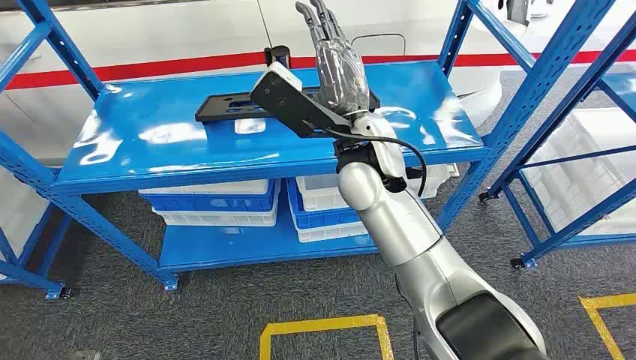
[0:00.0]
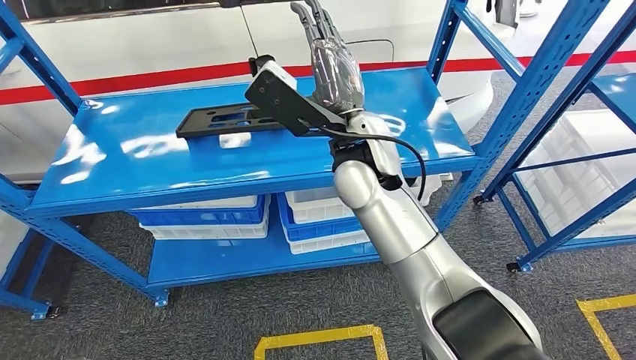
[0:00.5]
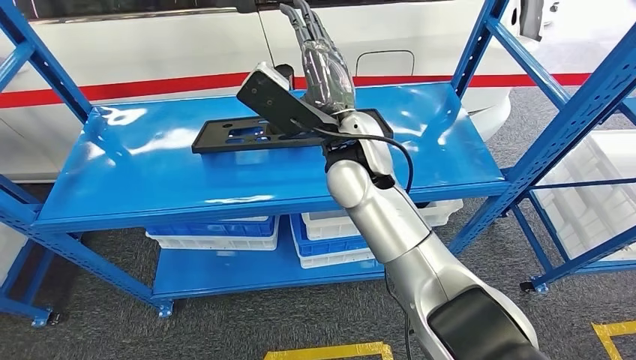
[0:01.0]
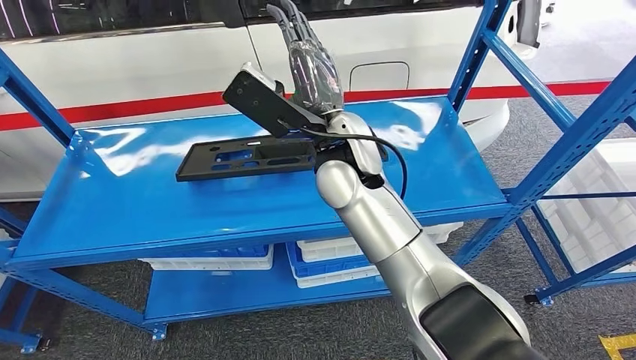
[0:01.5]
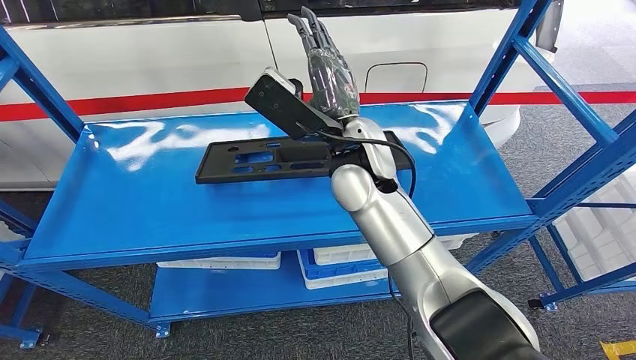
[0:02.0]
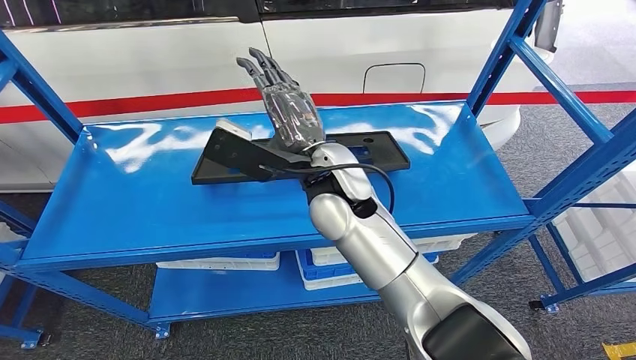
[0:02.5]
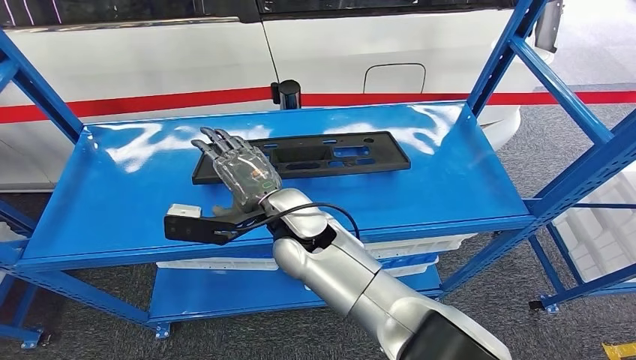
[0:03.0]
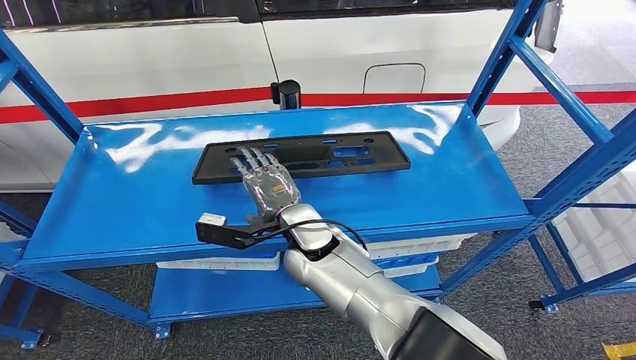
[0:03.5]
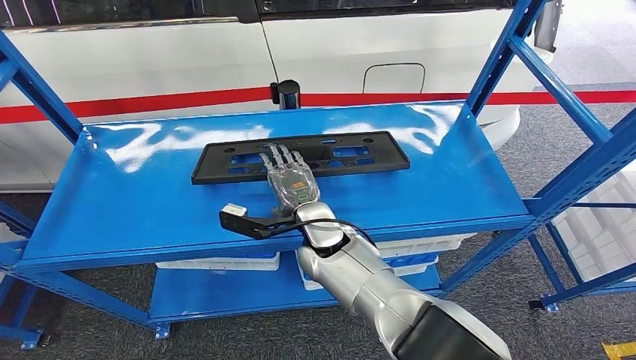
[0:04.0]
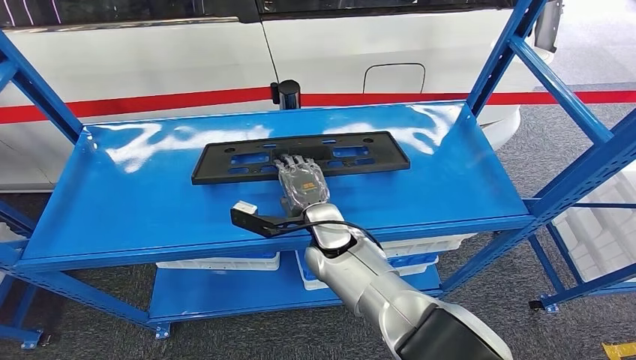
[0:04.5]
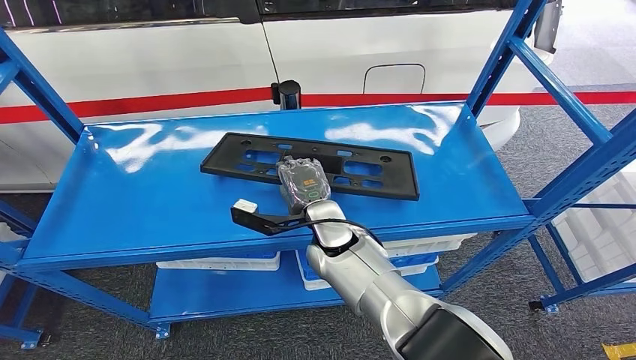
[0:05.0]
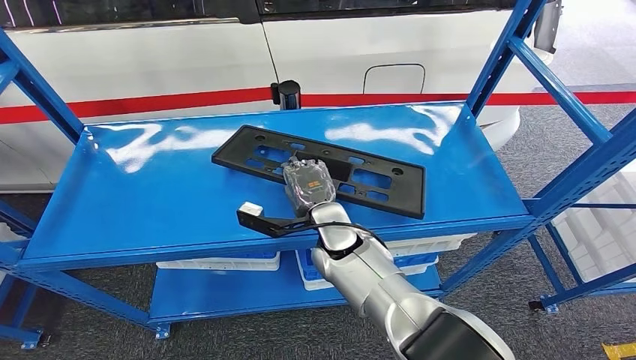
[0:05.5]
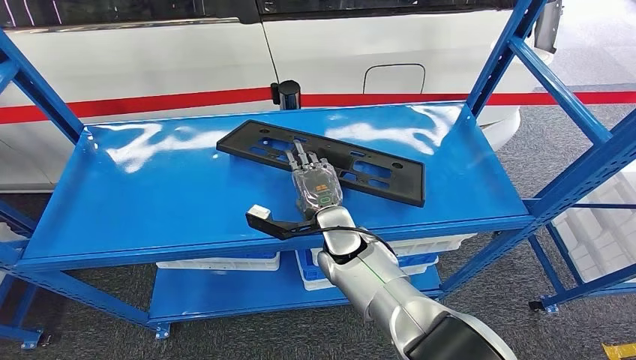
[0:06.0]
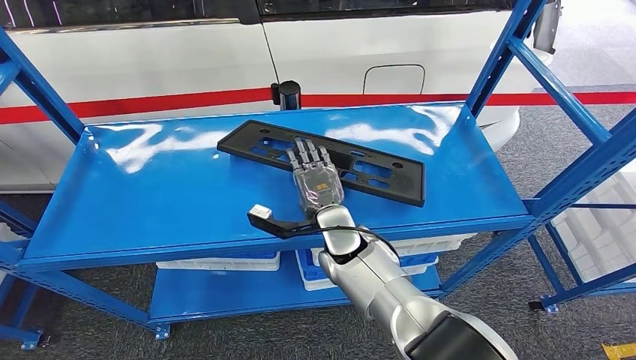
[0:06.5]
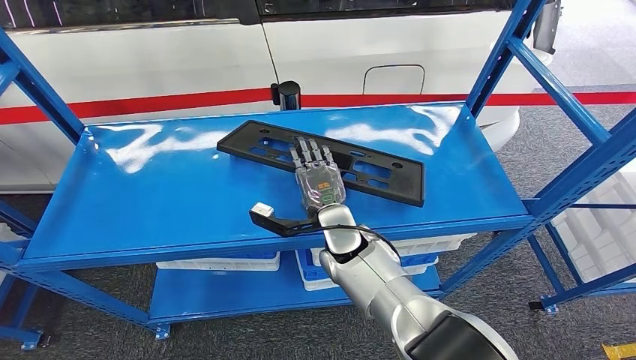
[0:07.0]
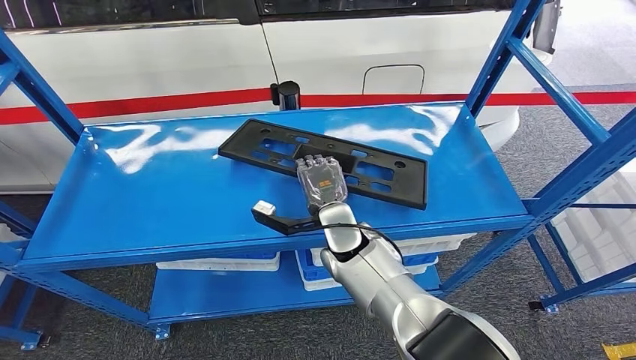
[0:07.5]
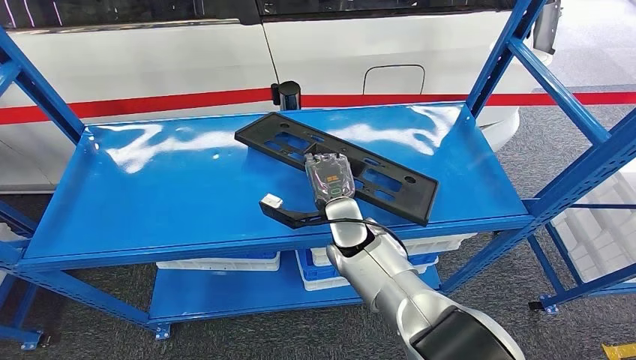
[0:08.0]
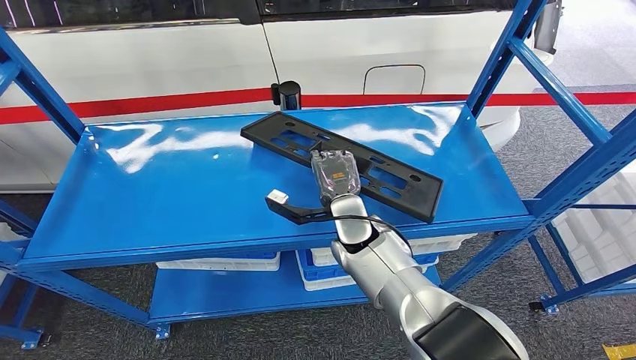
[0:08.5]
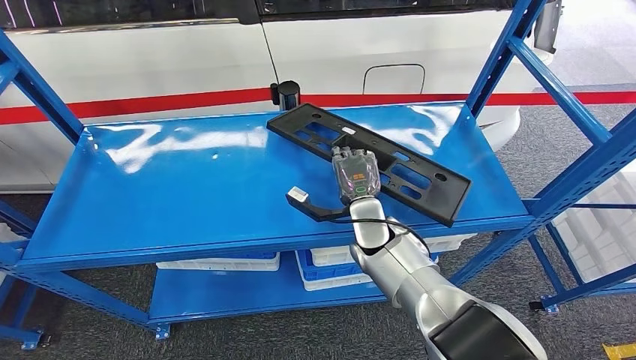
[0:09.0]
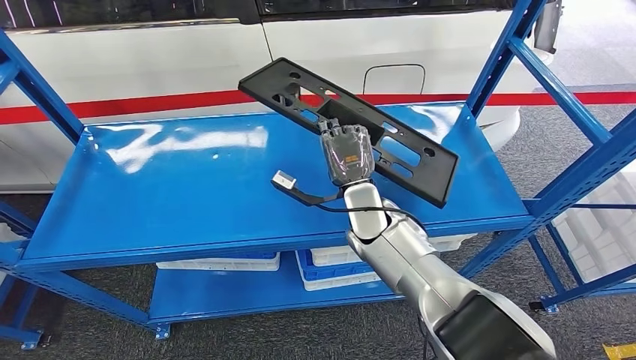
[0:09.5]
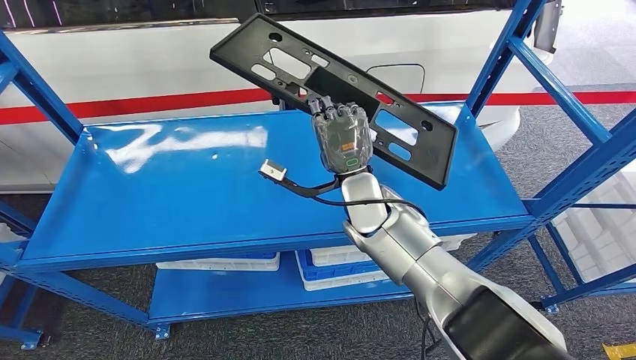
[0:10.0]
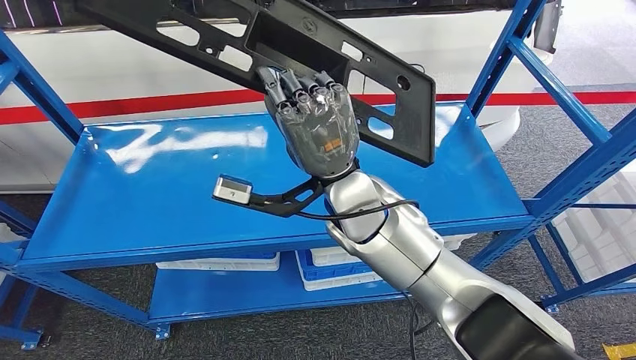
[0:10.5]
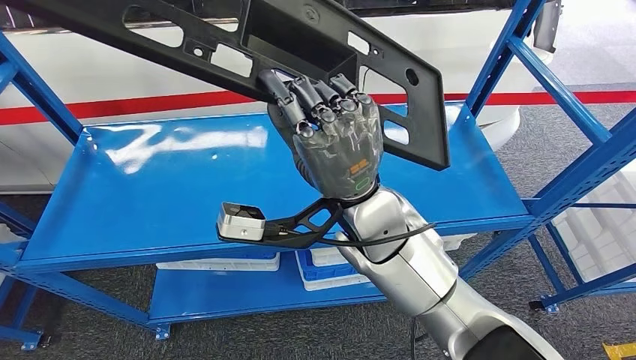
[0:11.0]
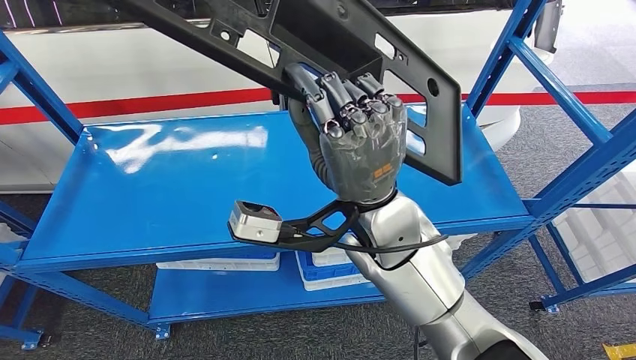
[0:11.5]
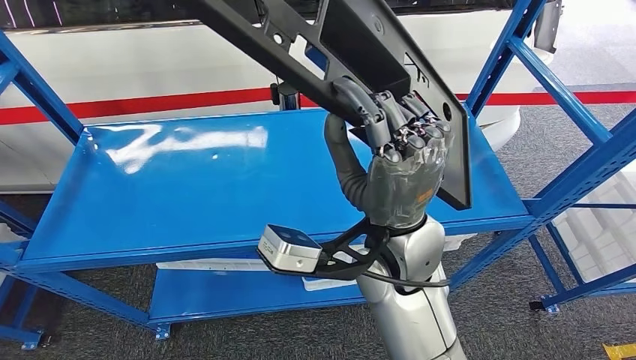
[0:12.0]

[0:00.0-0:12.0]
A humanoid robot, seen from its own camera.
0:04.0 to 0:08.0: The hands move only a little.
0:08.0 to 0:10.0: The right hand shifts approximately 5 cm upward.

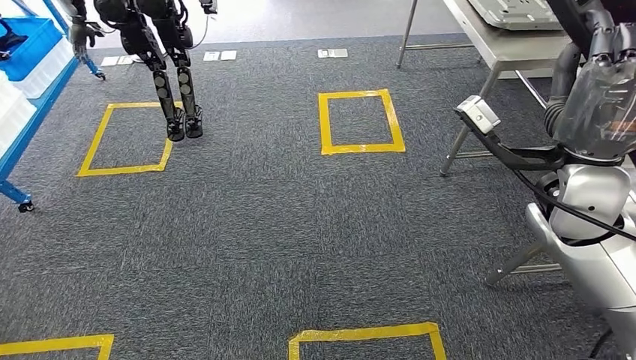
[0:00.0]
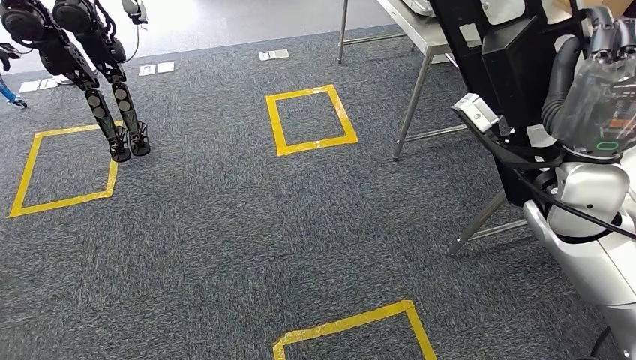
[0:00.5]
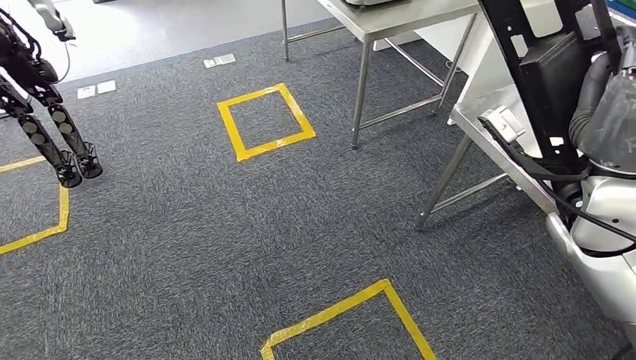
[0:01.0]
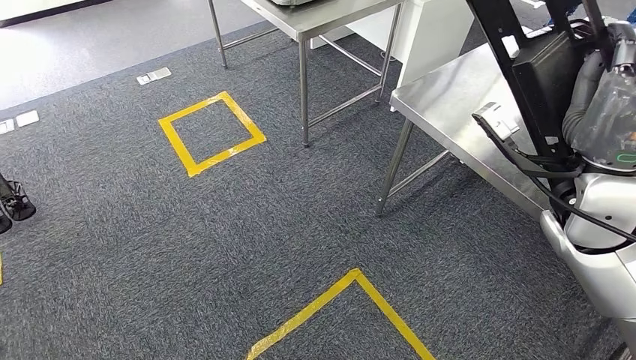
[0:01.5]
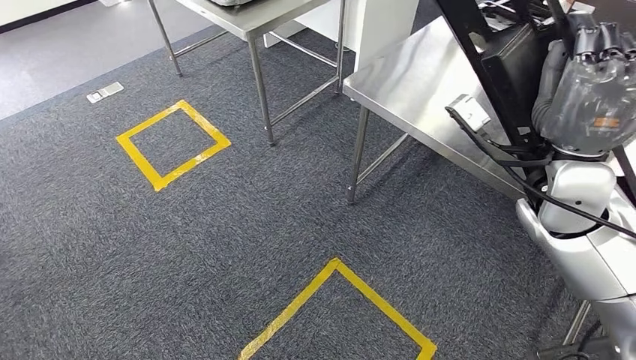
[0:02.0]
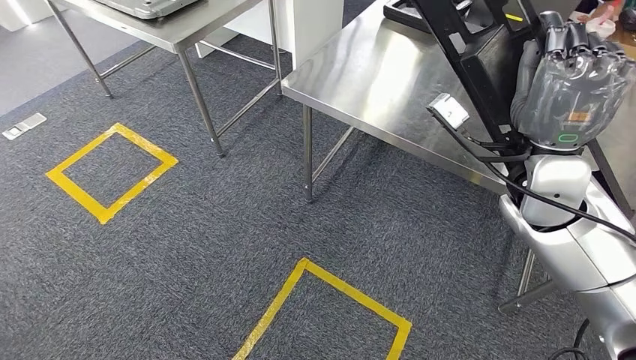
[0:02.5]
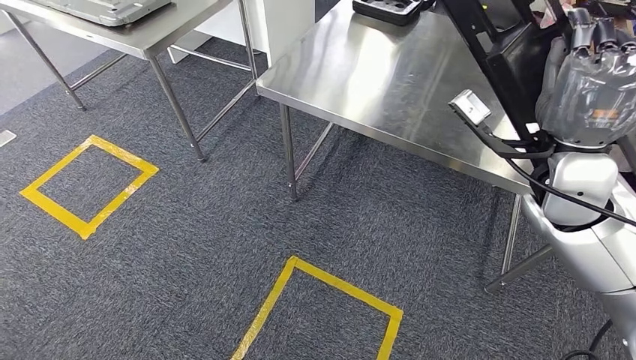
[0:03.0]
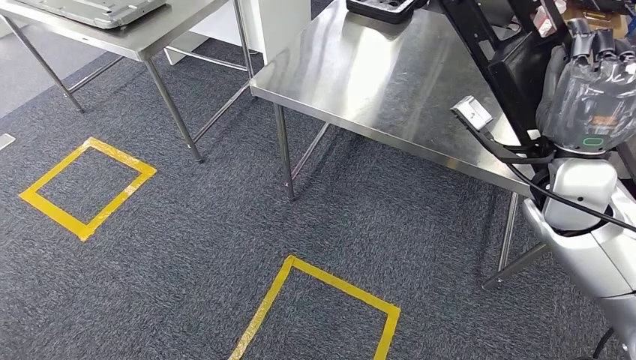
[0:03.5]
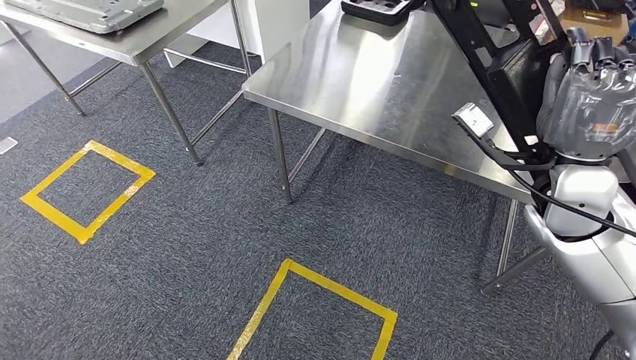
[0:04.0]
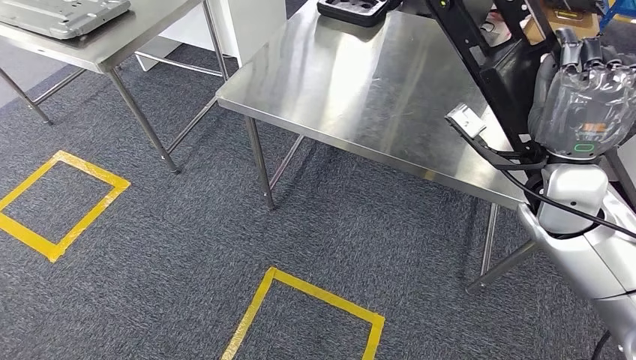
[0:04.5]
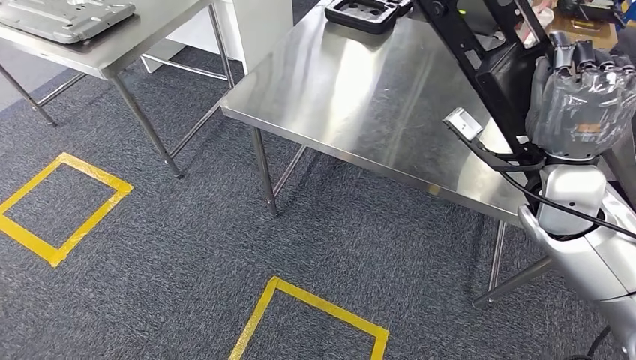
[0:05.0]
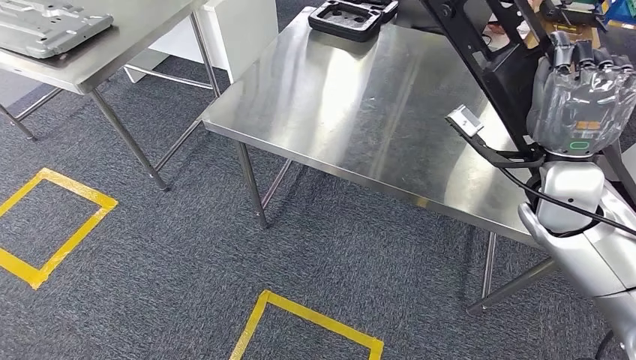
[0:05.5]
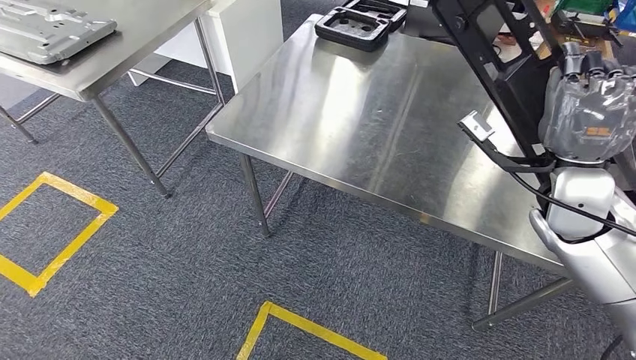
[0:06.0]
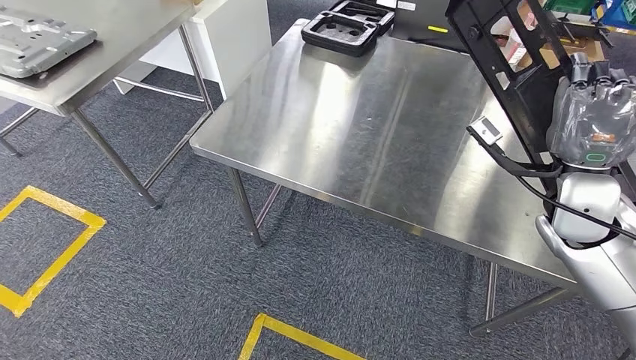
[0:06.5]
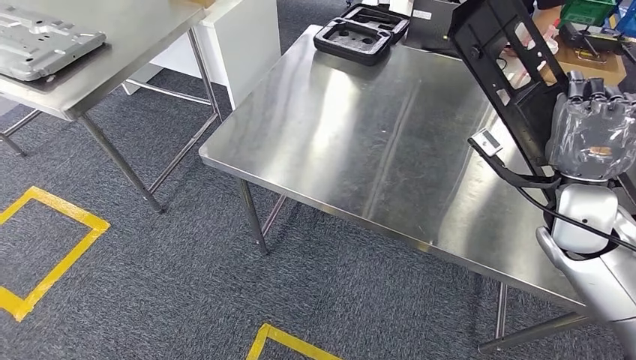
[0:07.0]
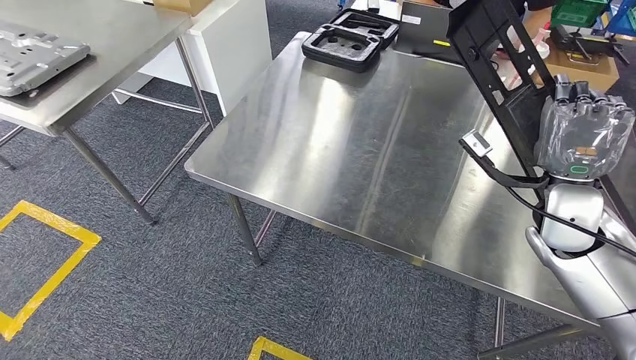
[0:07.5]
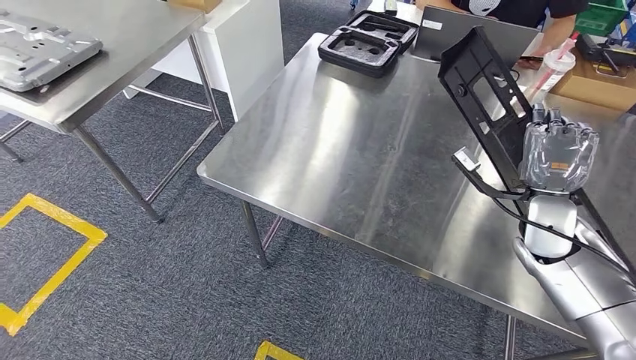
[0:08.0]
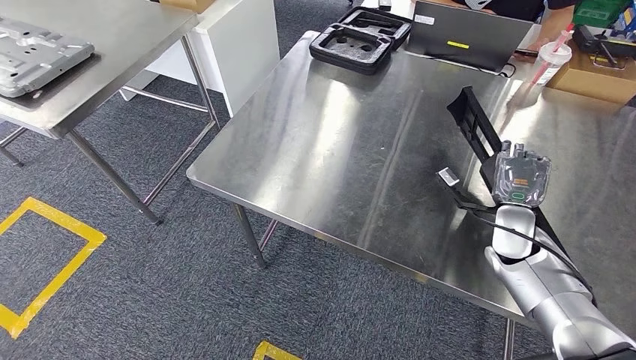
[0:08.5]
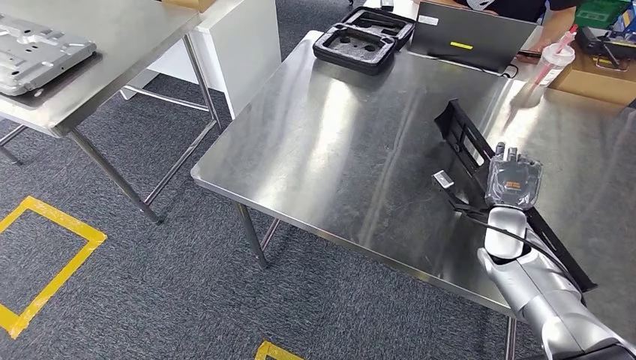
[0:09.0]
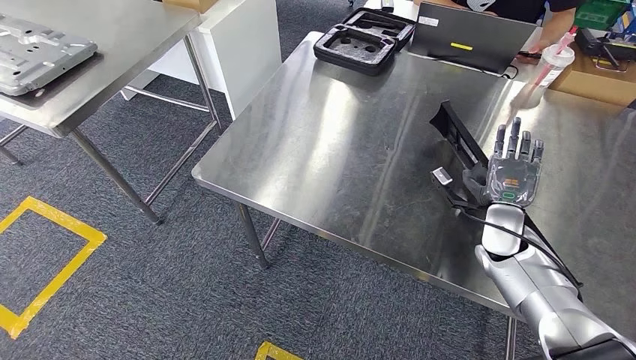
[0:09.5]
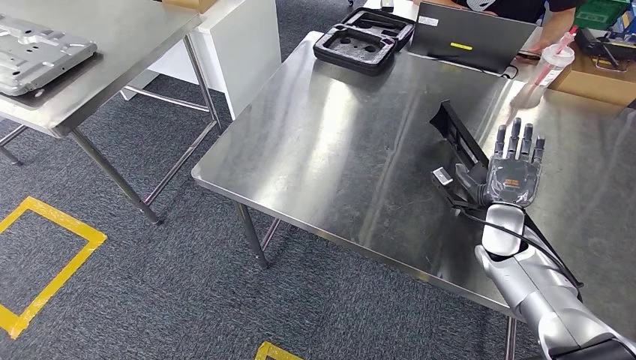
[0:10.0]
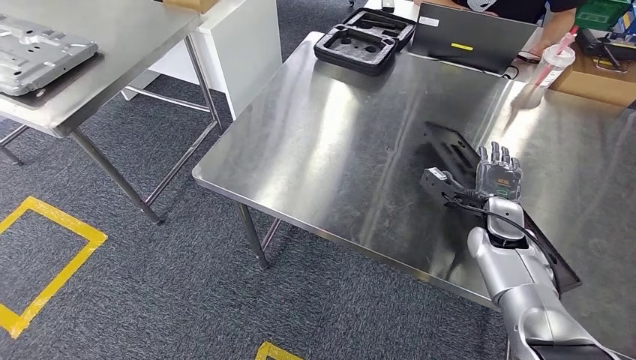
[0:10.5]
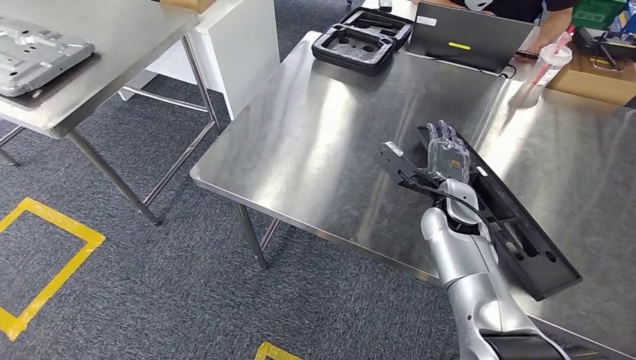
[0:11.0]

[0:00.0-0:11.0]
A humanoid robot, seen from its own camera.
Step, 0:00.0 to 0:07.0: Move the large material to the front of the workbench.
0:09.0 to 0:11.0: The right hand travels to the left by about 15 cm.
